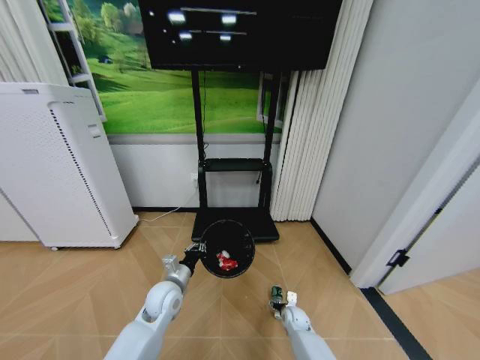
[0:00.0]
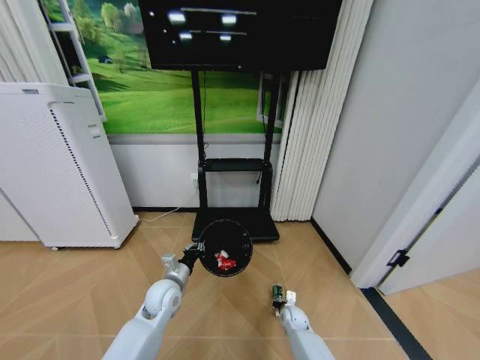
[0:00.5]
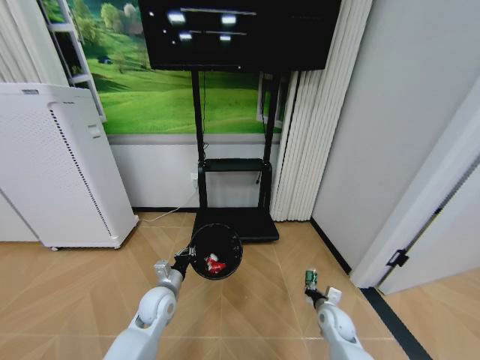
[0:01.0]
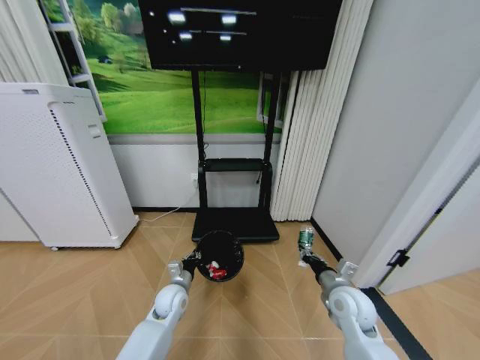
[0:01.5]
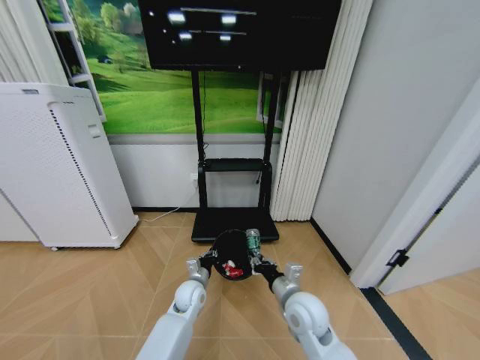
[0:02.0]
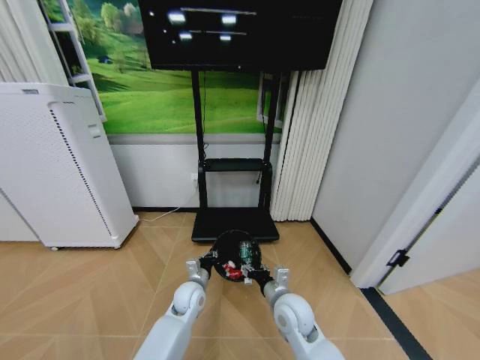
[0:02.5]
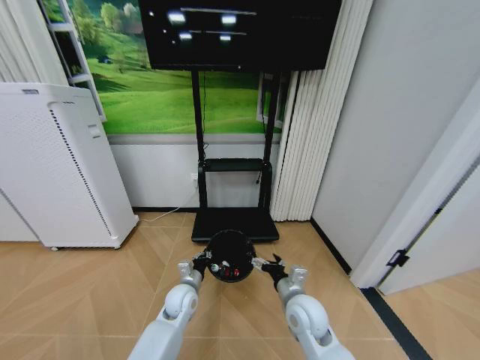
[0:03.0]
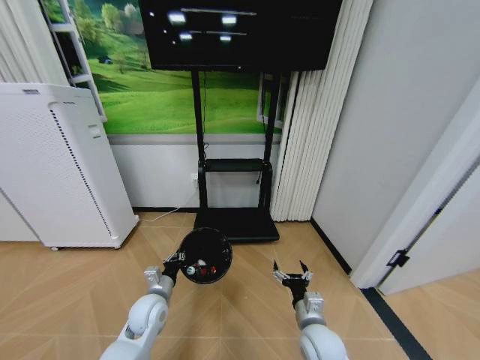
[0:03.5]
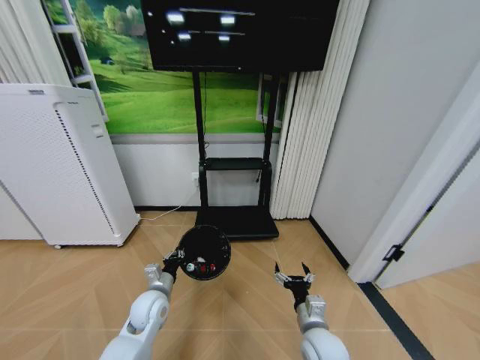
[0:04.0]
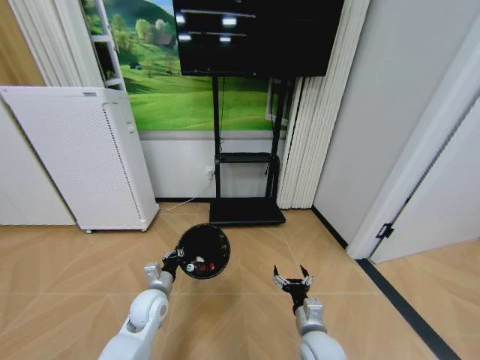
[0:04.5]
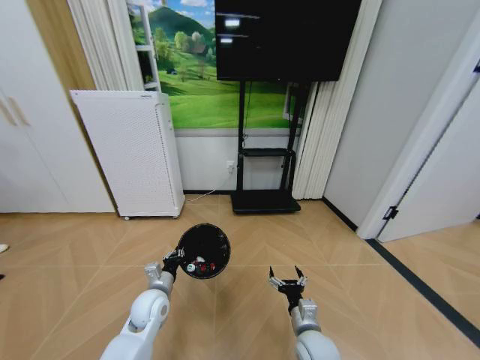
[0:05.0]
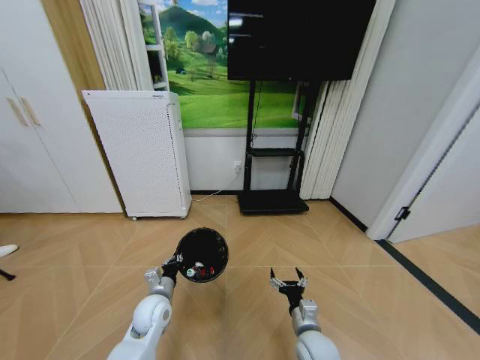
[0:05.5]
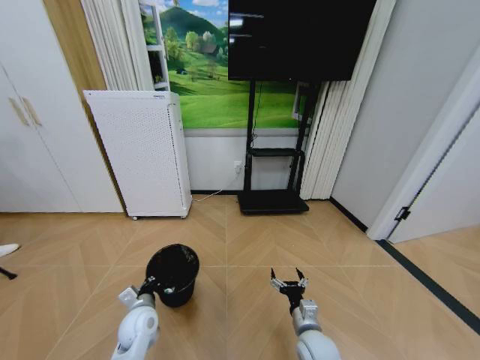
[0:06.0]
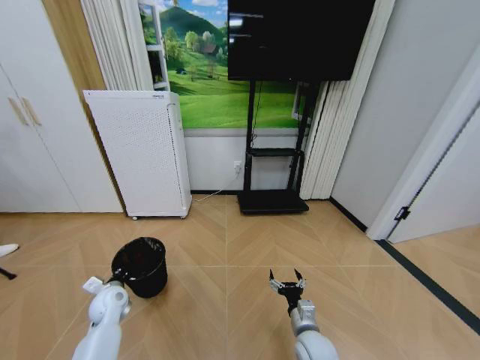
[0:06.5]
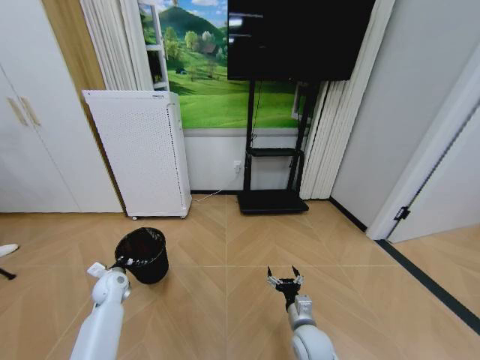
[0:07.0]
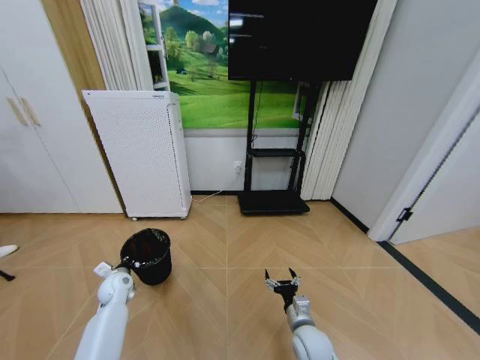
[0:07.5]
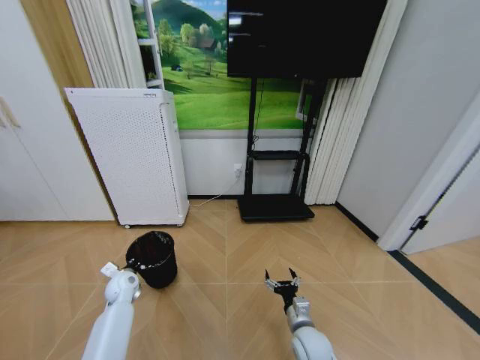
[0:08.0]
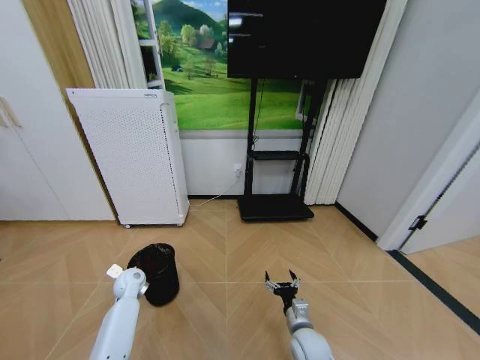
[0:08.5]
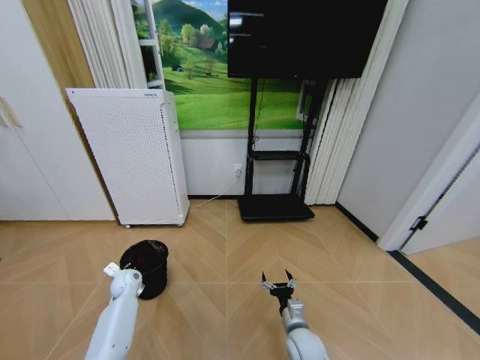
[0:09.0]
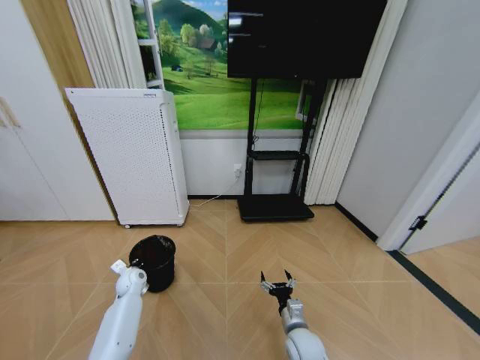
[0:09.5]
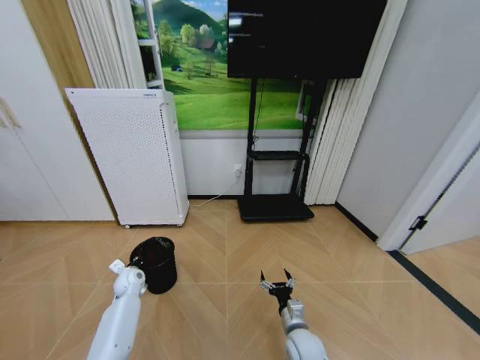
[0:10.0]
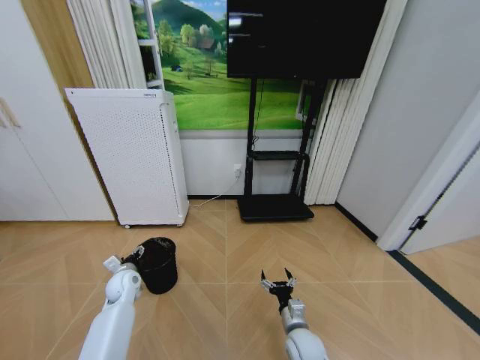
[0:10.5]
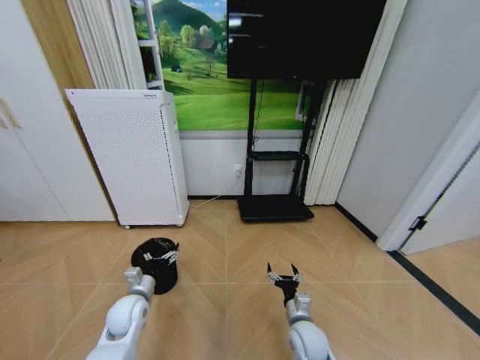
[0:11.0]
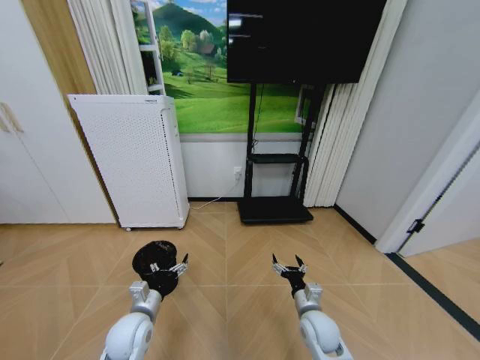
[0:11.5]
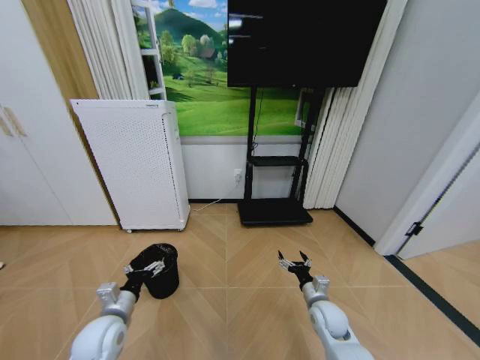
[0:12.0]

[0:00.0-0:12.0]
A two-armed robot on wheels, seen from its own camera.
Task of the whole recording: Pick up the trash bin and place the garbage on the floor into it.
0:00.0 to 0:02.0: The right gripper moves upward, some 30 cm, and closes. Meanwhile the left gripper is displaced downward by some 5 cm.
0:02.0 to 0:04.0: The left gripper is displaced to the left and backward by approximately 10 cm. The right gripper is displaced downward and backward by approximately 10 cm, and opens up.
0:04.0 to 0:06.0: The left gripper ends up approximately 5 cm from where it was.
0:06.0 to 0:08.0: The left gripper moves forward and to the left, approximately 15 cm.
0:08.0 to 0:10.0: The grippers stay close to where they were, moving slightly.
0:10.0 to 0:12.0: The left gripper moves backward and upward, some 20 cm, and opens up, while the right gripper is displaced to the right and forward by approximately 10 cm.

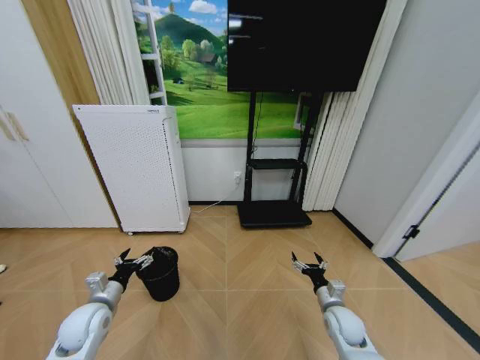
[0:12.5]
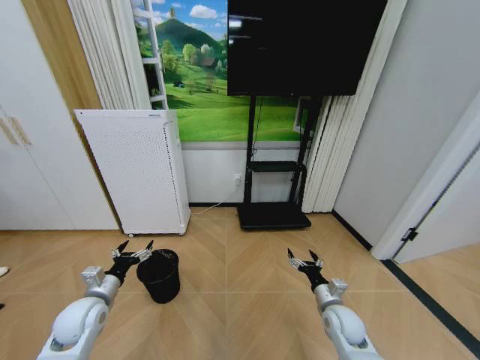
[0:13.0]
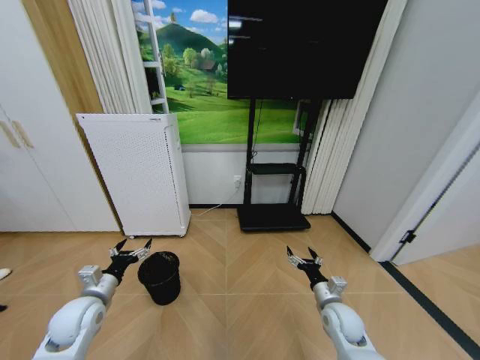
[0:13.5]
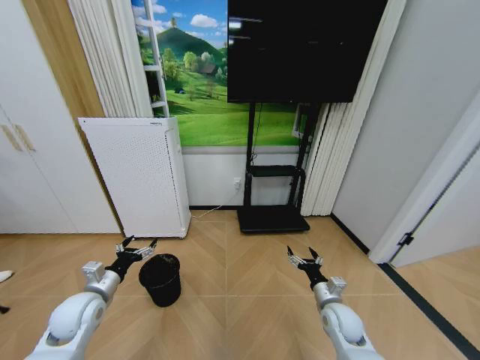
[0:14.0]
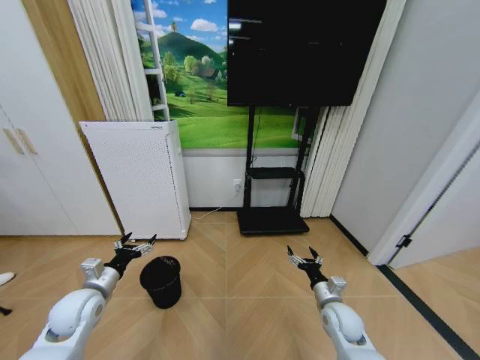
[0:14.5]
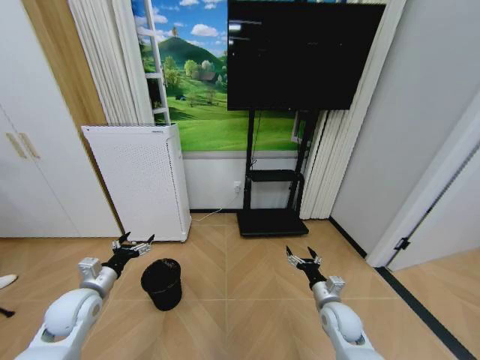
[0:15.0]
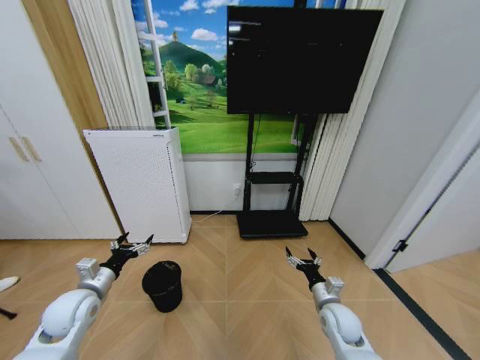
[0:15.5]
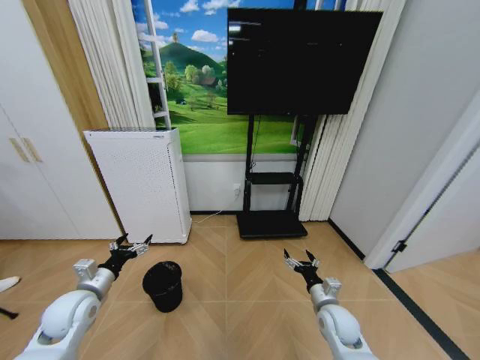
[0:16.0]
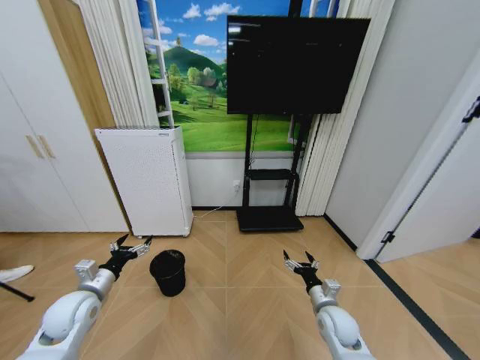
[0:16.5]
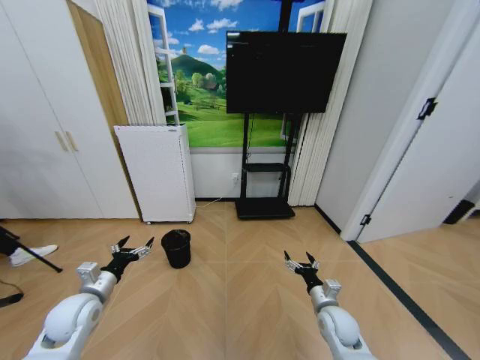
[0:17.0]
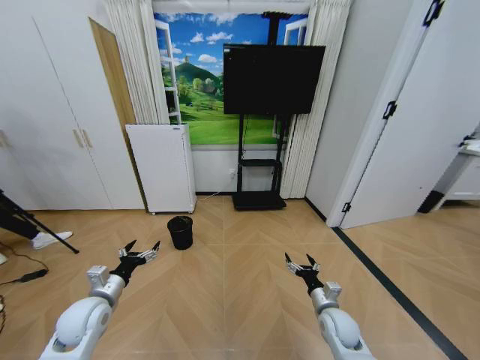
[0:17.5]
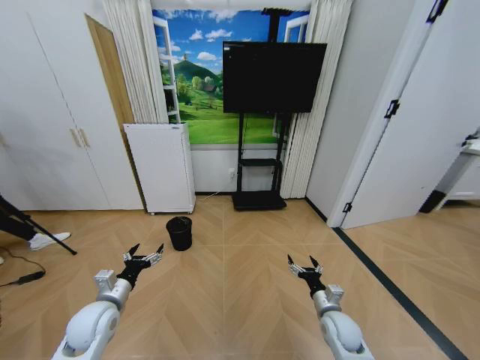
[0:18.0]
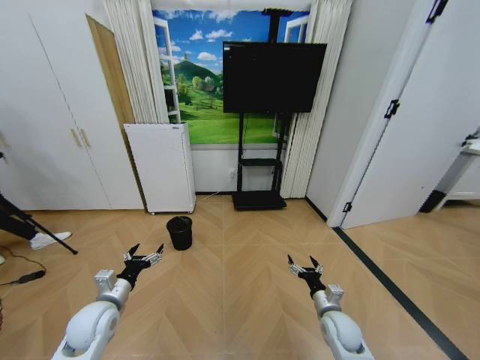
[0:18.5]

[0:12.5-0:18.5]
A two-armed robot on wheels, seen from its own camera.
Task of the whole recording: Pick up the trash bin and place the garbage on the floor into it.
0:12.5 to 0:14.5: The grippers make only small movements.
0:16.5 to 0:18.5: The left gripper moves about 5 cm.

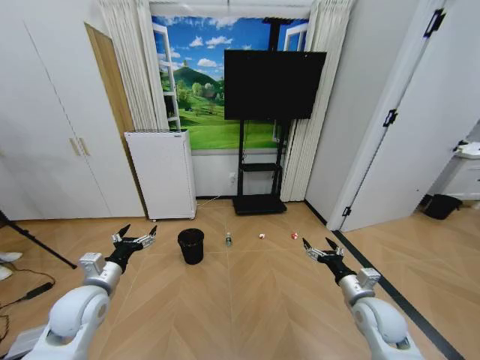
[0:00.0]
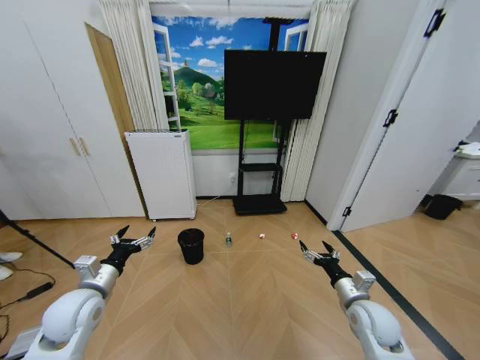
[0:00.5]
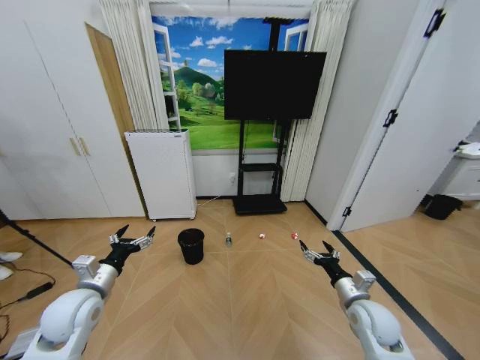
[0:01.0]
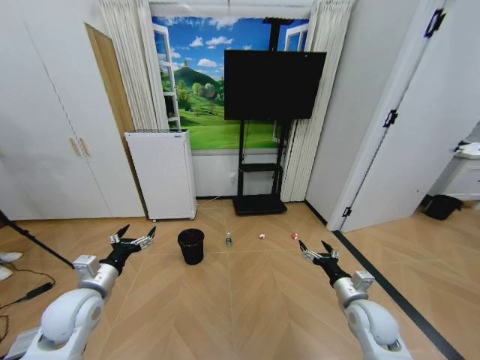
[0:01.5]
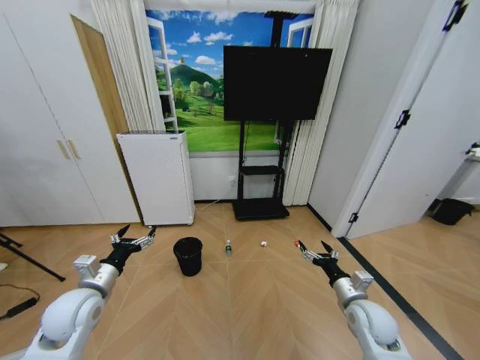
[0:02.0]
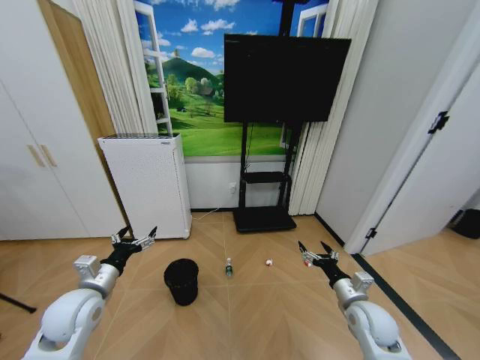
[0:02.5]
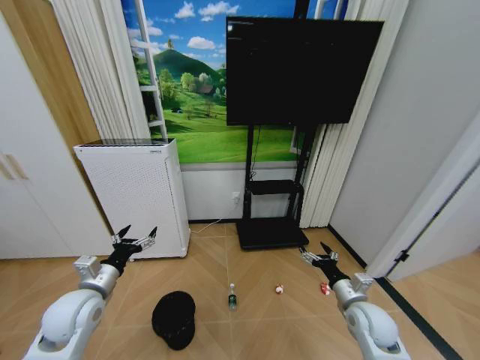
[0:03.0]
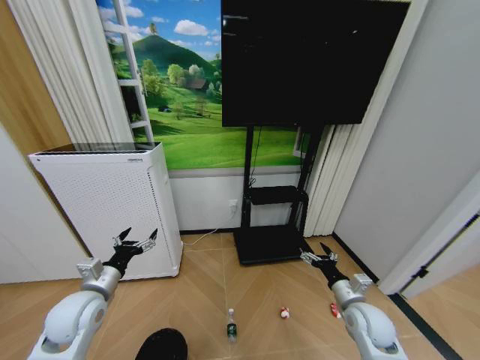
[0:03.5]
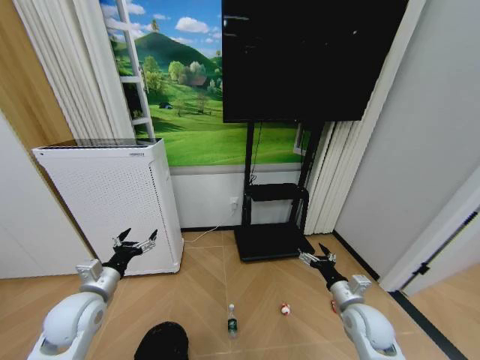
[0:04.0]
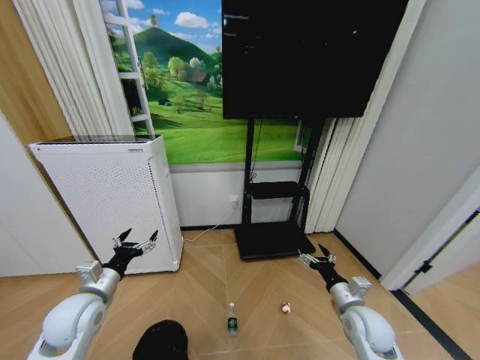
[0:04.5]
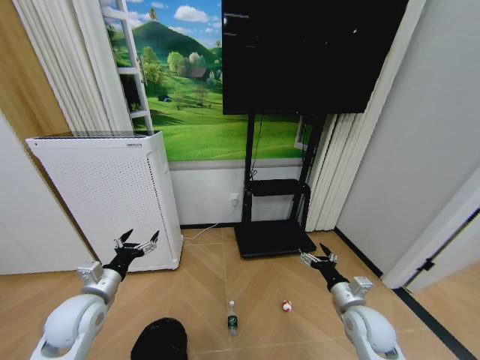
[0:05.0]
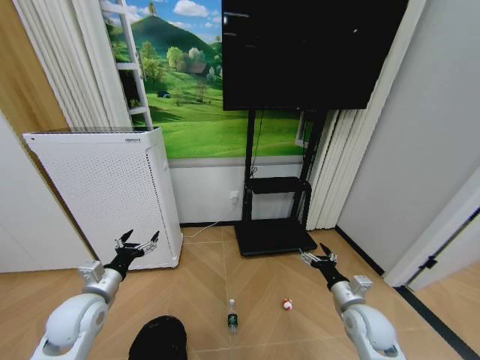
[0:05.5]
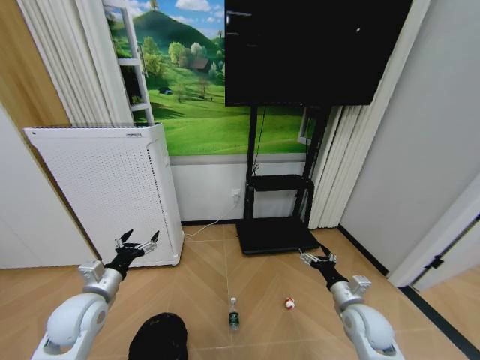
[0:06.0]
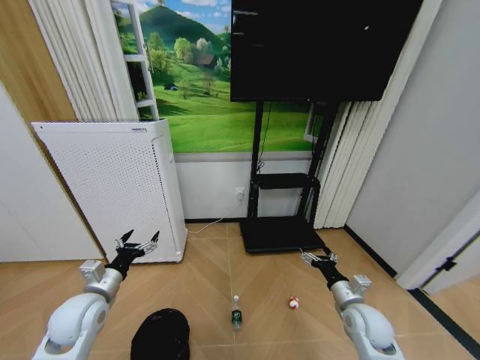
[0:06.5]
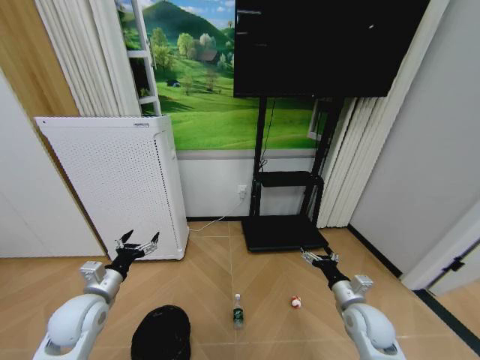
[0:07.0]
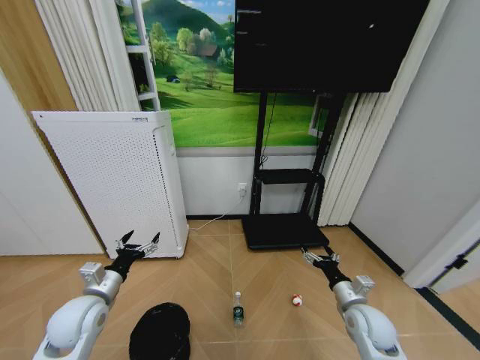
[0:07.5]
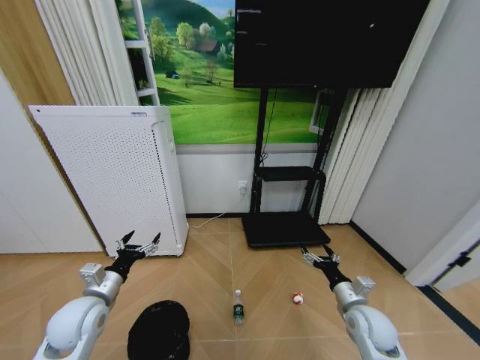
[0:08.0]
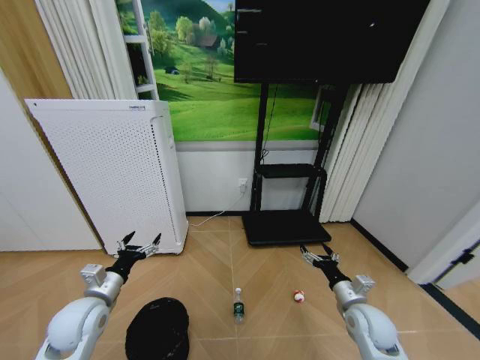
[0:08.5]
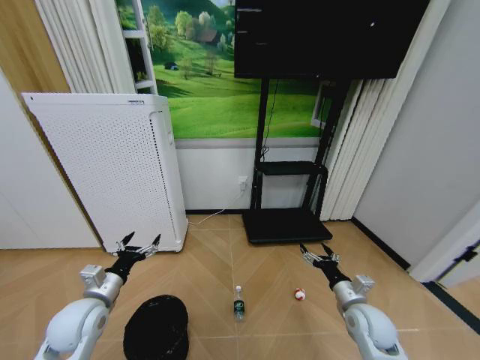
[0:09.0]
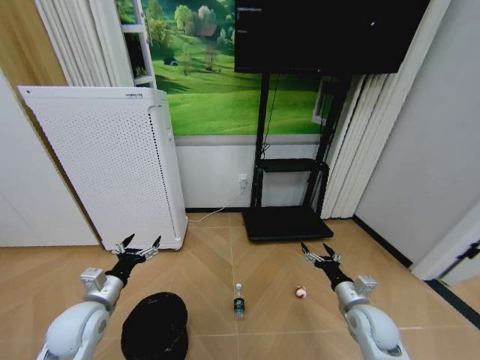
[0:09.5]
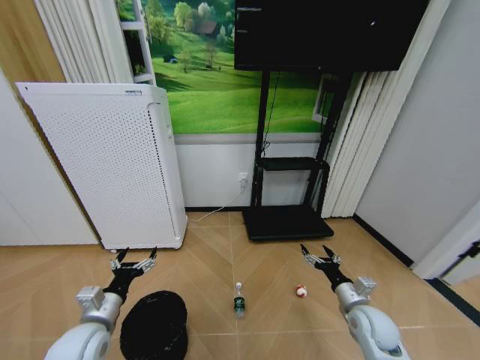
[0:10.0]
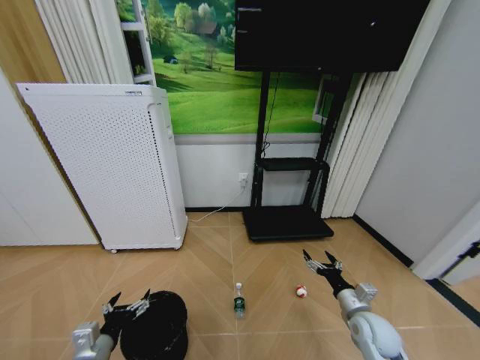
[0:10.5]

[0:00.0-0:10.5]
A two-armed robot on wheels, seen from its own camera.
Task of the whole recording: Pick up the trash bin and place the garbage on the floor into it.
0:08.5 to 0:10.5: The left gripper heads backward and downward, covering roughly 15 cm.
